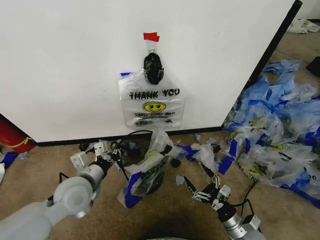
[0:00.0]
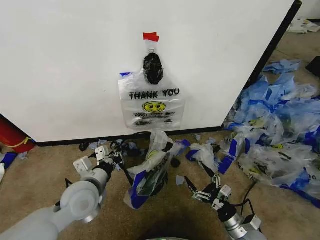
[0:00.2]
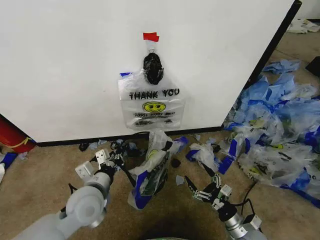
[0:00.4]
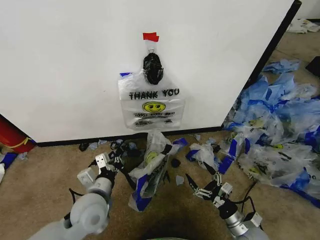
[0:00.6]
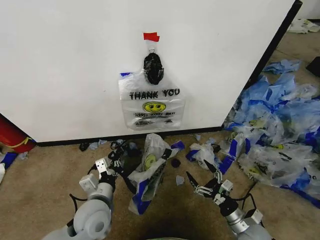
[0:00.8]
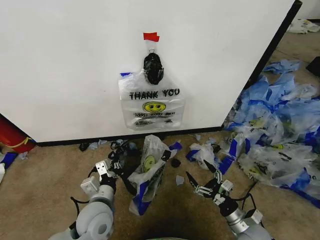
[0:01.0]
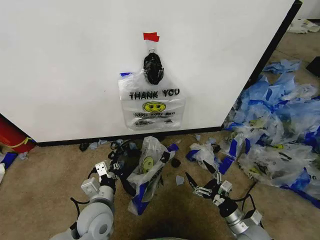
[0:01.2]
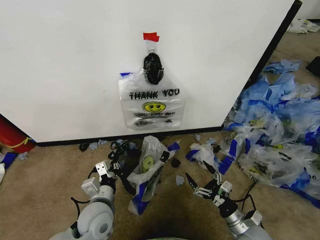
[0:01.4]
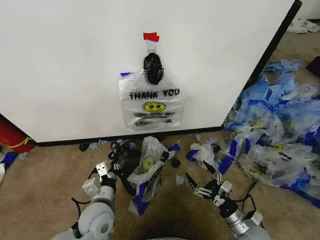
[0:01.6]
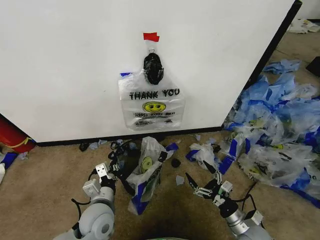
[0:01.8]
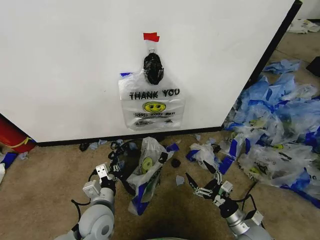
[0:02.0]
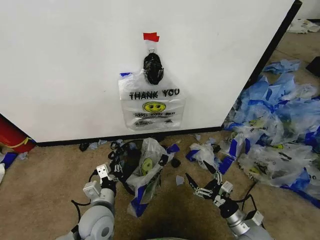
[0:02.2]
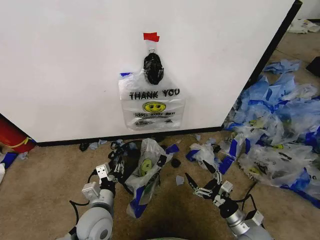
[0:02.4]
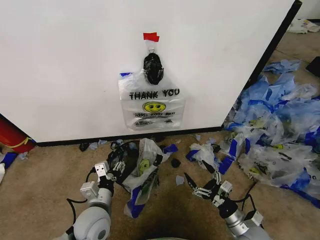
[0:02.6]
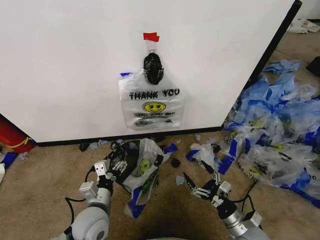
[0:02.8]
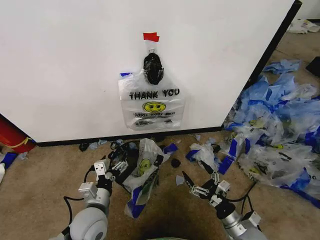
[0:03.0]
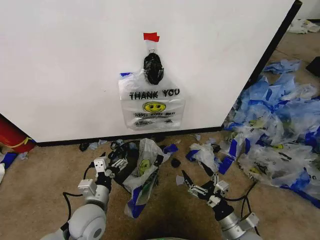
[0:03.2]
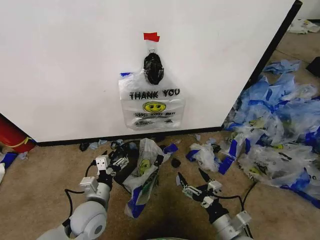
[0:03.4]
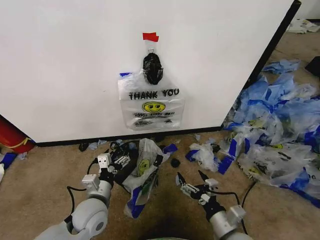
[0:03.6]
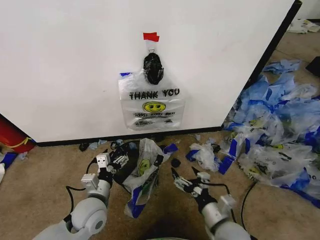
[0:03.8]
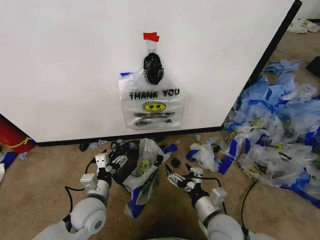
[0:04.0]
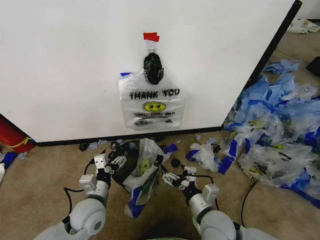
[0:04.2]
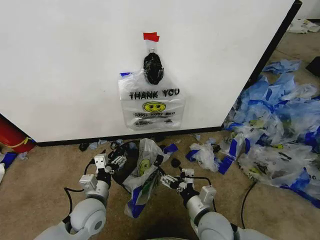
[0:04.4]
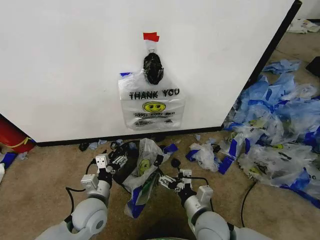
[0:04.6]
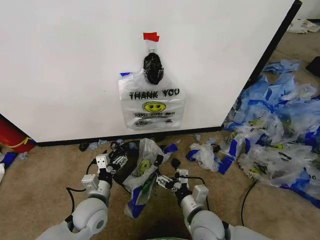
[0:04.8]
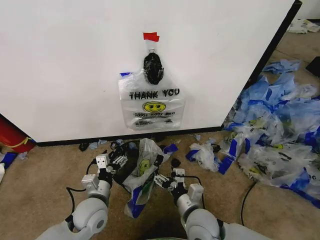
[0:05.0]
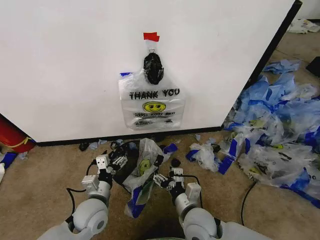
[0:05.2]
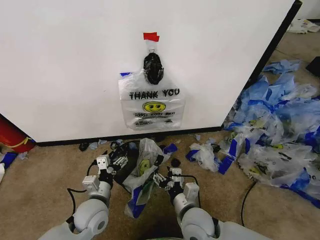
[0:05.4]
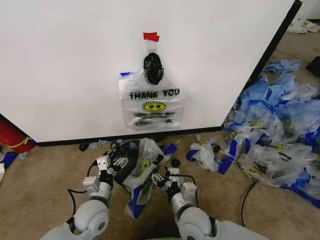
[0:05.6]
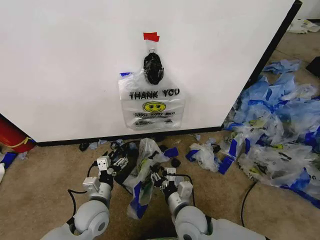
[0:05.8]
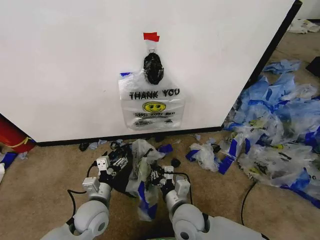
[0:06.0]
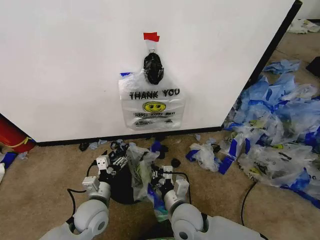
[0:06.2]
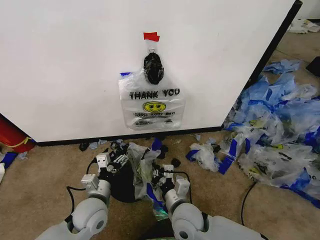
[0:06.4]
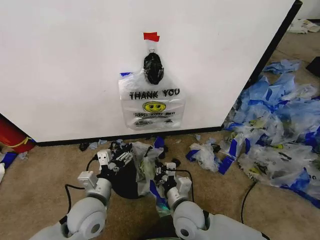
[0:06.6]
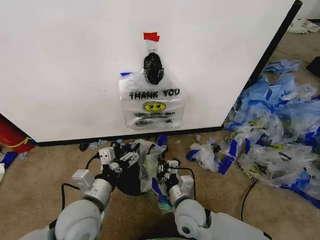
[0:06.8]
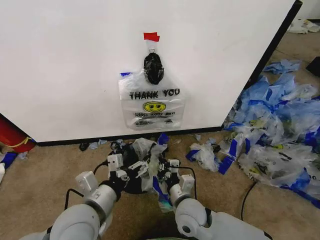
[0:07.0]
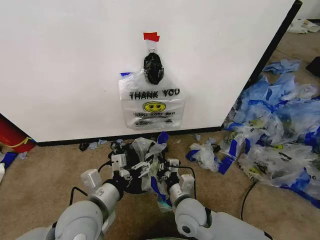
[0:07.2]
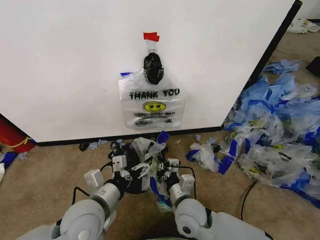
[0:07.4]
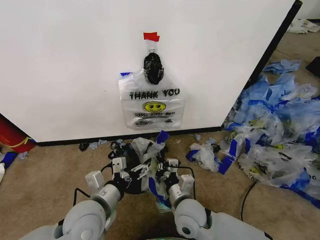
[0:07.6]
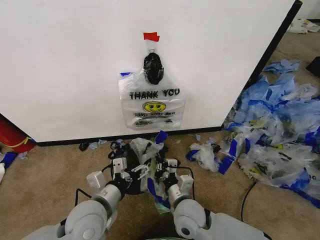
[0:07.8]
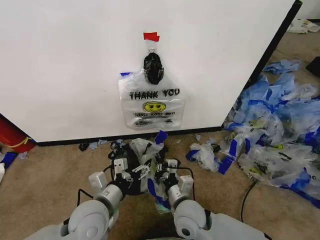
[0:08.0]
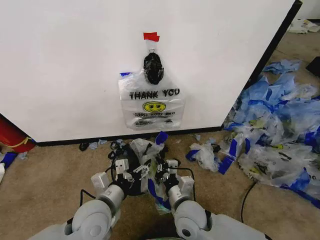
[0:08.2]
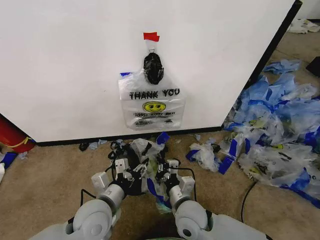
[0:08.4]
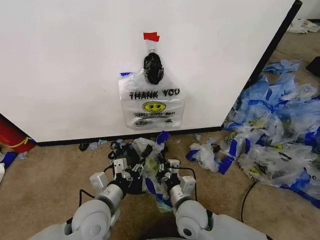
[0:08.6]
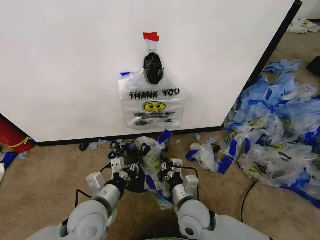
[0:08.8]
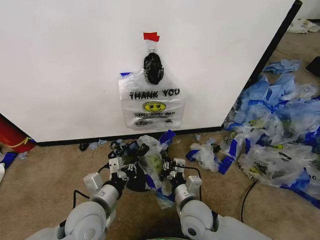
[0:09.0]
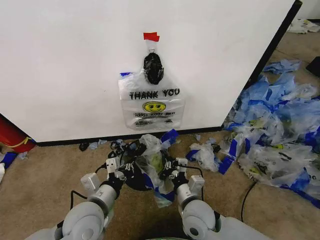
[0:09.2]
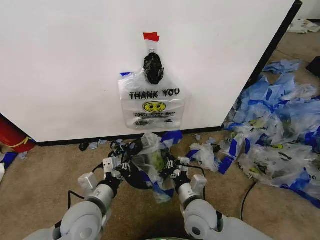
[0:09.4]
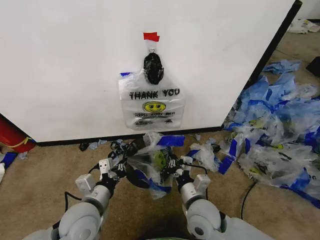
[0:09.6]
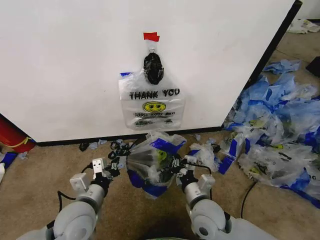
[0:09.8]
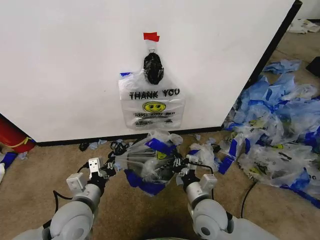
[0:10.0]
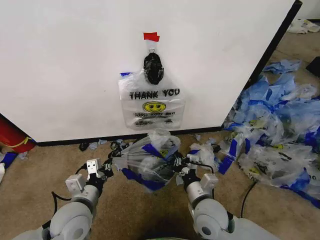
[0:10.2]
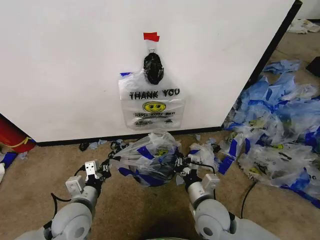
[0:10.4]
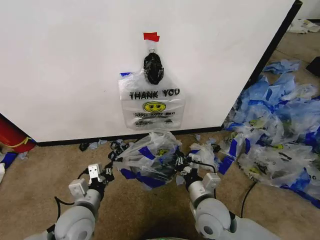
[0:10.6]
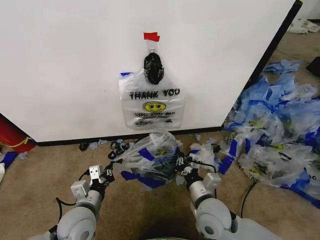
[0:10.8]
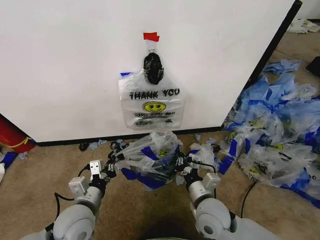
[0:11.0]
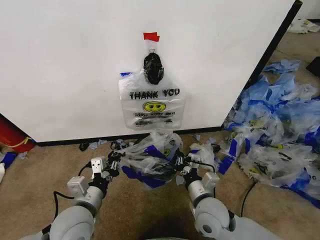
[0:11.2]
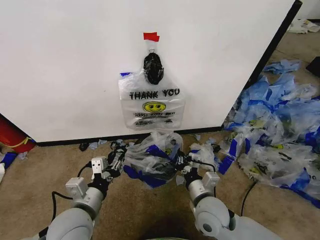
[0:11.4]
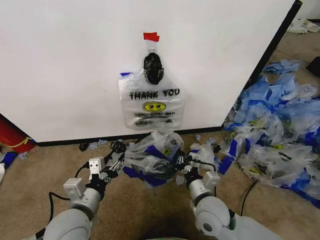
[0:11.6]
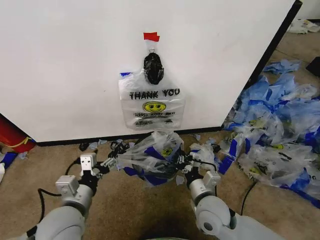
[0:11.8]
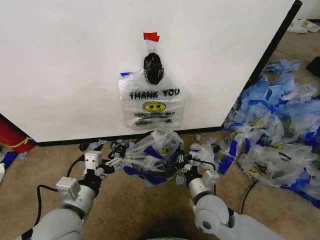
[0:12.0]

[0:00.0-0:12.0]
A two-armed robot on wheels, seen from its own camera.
Task of the whole recording: Pick up the garbage bag from the wall and place it over the trash bin.
0:00.0 to 0:01.6: The left gripper heads downward and to the right, covering approximately 10 cm.
0:01.6 to 0:03.0: The left gripper opens.
0:03.0 to 0:04.4: The right gripper shifts about 15 cm to the left and upward.
0:04.4 to 0:06.0: The right gripper is displaced to the left by approximately 5 cm, and closes its fingers.
0:06.0 to 0:07.6: The left gripper heads upward, covering some 10 cm.
0:07.6 to 0:09.0: The left gripper closes up.
0:09.0 to 0:10.4: The left gripper travels to the left by about 5 cm.
0:10.4 to 0:12.0: The left gripper travels upward by about 5 cm, and opens.

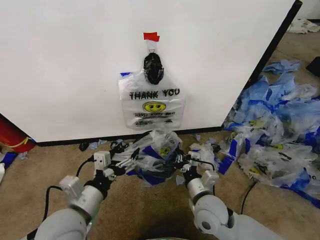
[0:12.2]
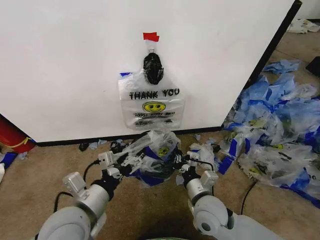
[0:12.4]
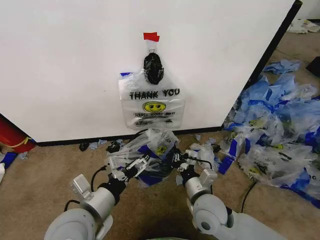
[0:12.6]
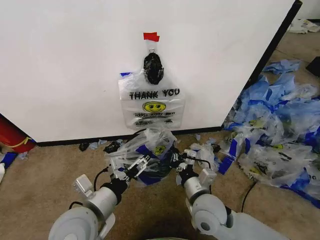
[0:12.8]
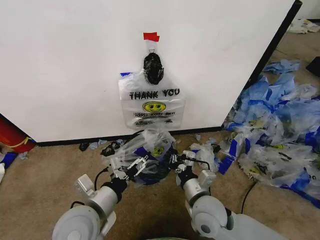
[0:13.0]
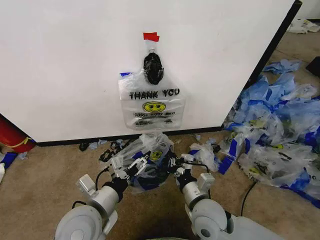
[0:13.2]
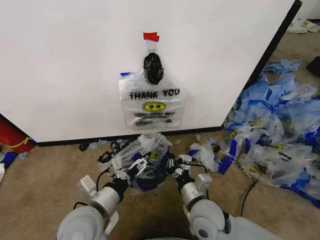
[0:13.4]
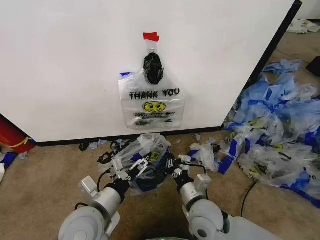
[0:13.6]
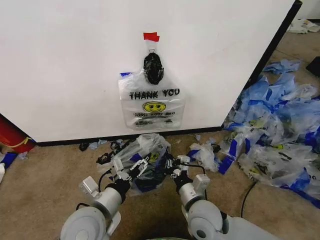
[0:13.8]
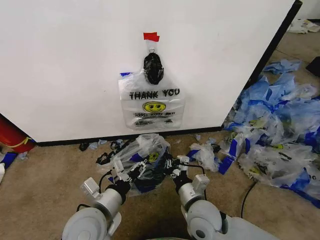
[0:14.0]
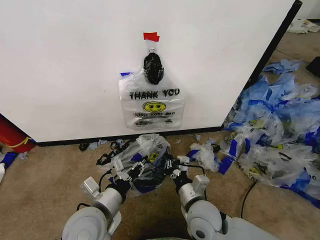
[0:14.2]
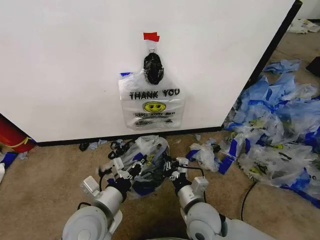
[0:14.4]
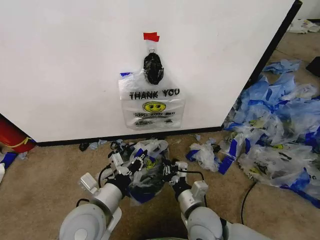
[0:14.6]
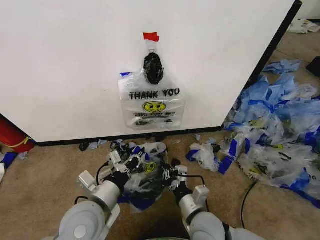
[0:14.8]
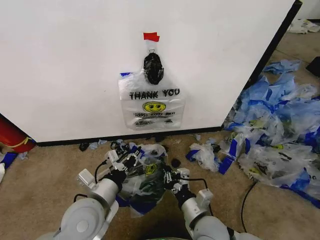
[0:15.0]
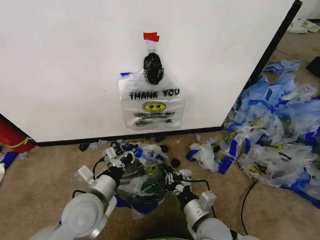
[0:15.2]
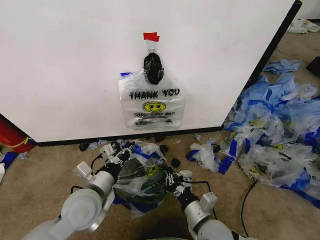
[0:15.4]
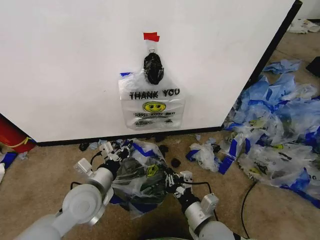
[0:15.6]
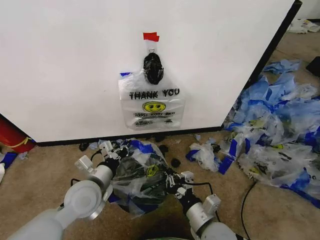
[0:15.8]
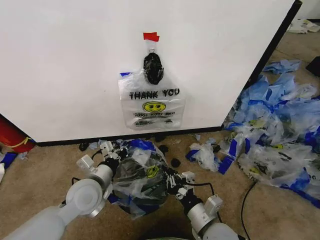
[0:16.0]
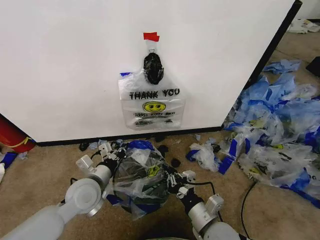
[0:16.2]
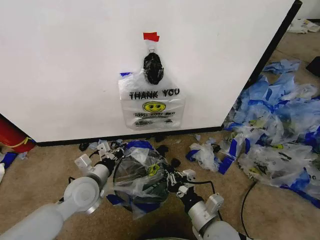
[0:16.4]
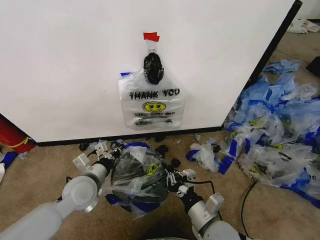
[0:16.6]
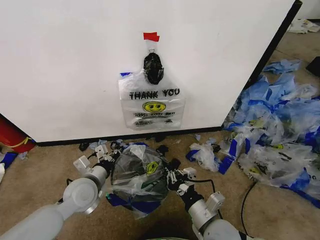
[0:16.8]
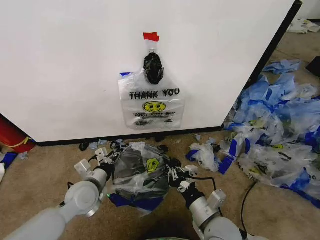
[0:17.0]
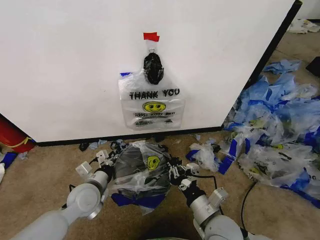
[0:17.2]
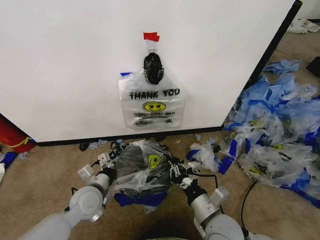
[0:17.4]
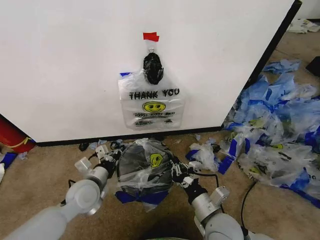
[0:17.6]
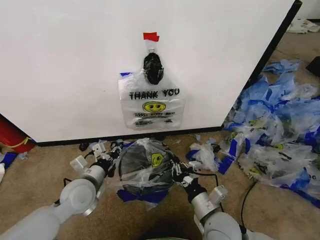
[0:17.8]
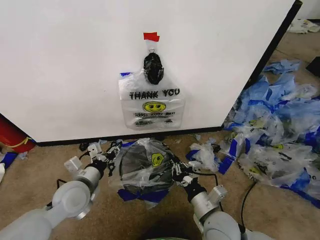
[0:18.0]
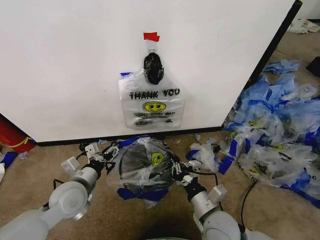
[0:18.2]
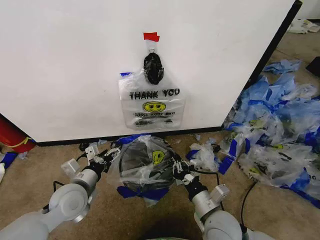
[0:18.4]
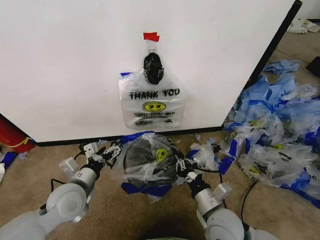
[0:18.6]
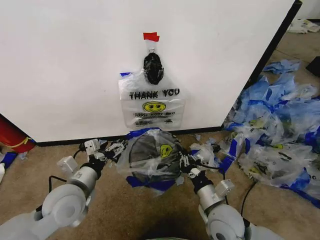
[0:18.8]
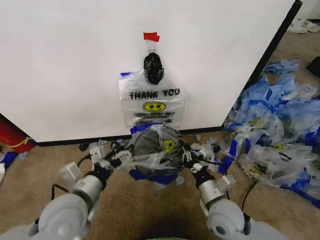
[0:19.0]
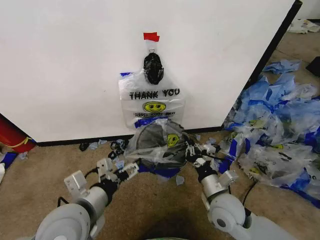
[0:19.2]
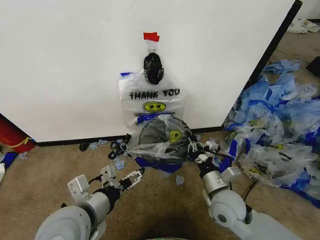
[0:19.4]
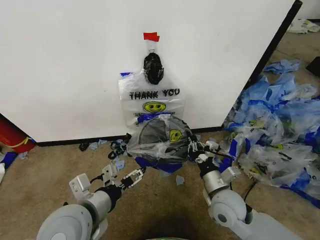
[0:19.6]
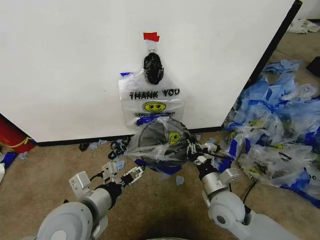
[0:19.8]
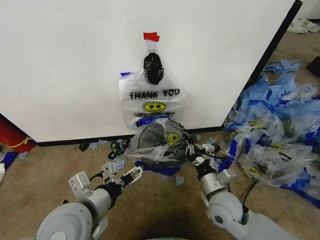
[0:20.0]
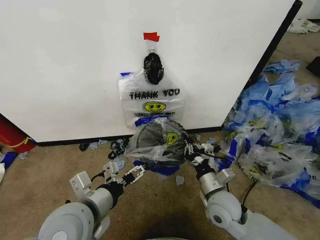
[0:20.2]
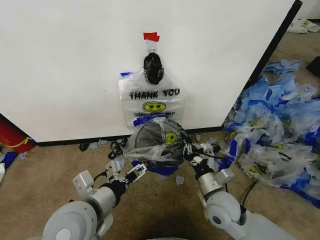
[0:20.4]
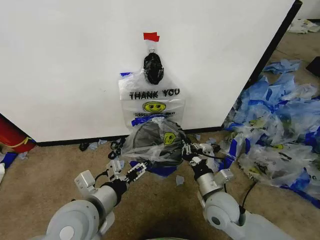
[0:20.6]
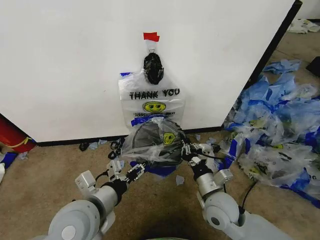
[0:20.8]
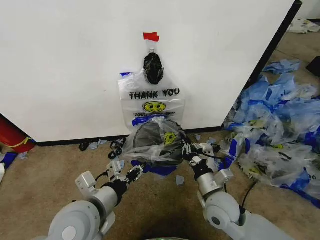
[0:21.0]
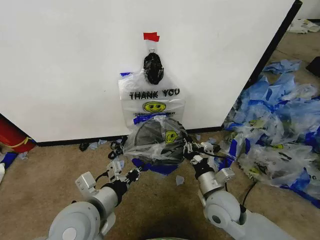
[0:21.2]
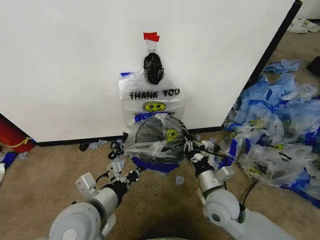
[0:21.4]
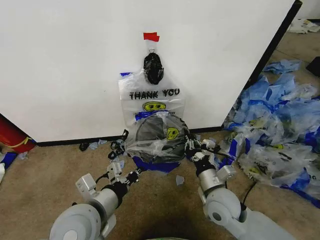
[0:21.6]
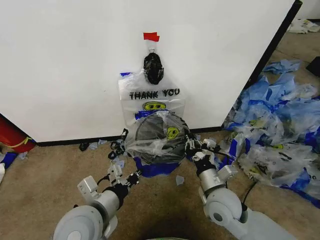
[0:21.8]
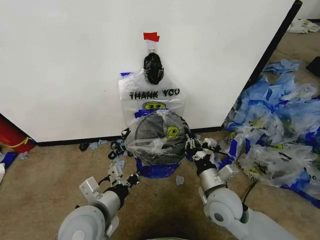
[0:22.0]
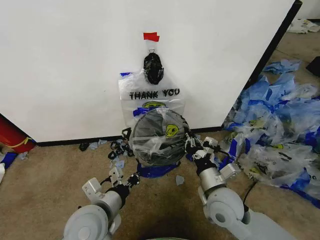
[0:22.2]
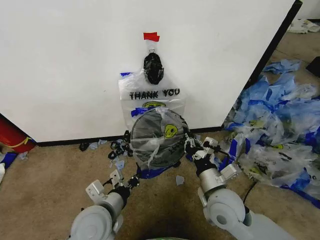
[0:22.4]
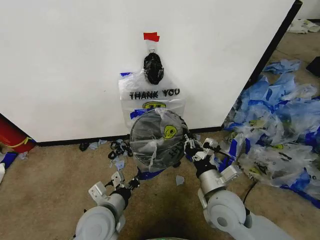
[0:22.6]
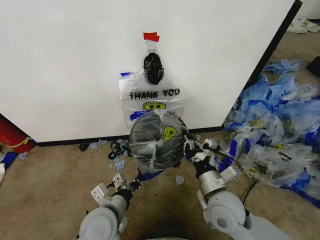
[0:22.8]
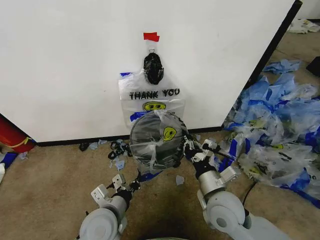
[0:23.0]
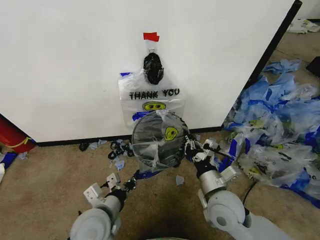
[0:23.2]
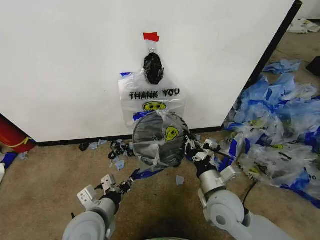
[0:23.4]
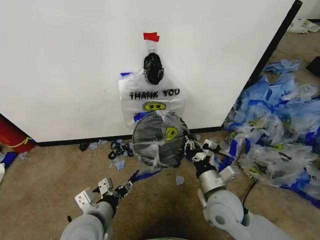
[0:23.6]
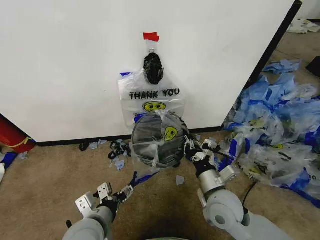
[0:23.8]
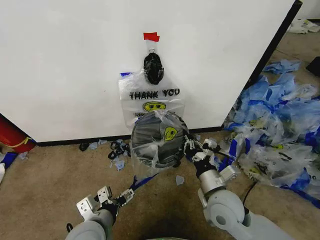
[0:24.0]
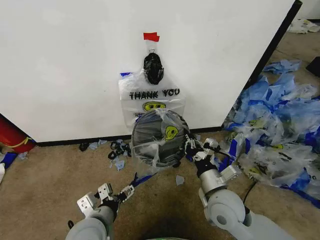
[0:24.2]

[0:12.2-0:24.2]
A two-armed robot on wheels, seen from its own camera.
Task of the whole recording: Pick up the garbage bag from the wall and place it over the trash bin.
0:13.8 to 0:15.2: The right gripper ends up approximately 5 cm from where it was. The left gripper closes up.
0:15.2 to 0:16.6: The left gripper goes some 5 cm forward.
0:16.6 to 0:18.2: The left gripper opens its fingers.
0:18.2 to 0:19.8: The left gripper is displaced backward, upward and to the right by about 15 cm; the right gripper goes roughly 5 cm forward.
0:19.8 to 0:21.2: The left gripper closes its fingers.
0:21.2 to 0:22.6: The left gripper moves downward, approximately 10 cm.
0:22.6 to 0:24.2: The left gripper opens its fingers.
